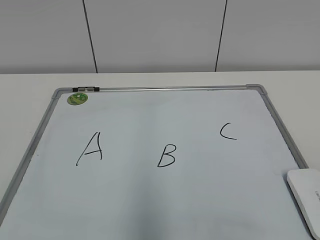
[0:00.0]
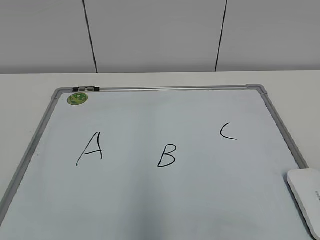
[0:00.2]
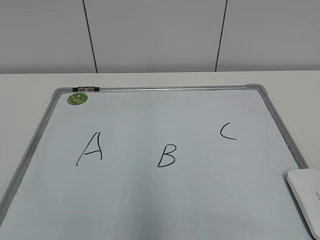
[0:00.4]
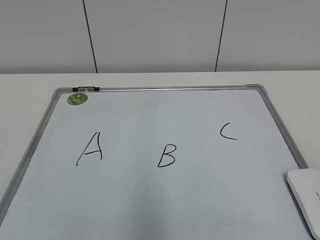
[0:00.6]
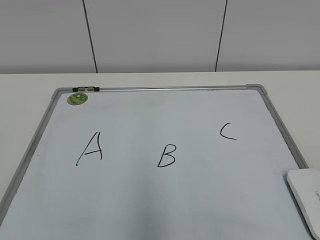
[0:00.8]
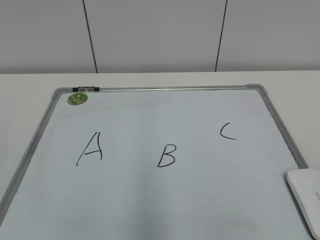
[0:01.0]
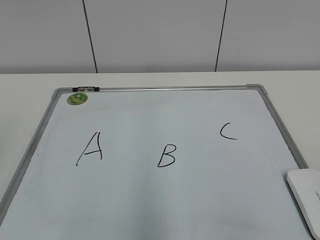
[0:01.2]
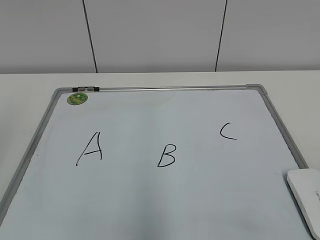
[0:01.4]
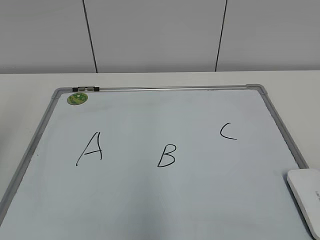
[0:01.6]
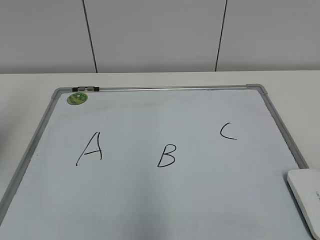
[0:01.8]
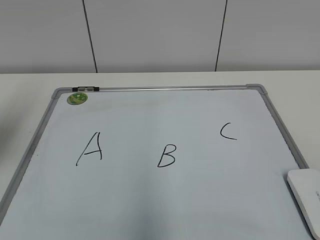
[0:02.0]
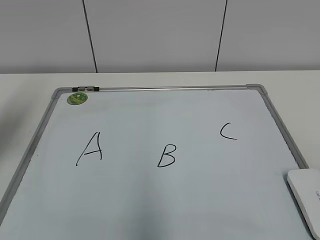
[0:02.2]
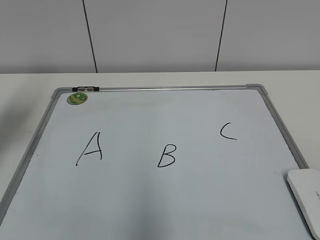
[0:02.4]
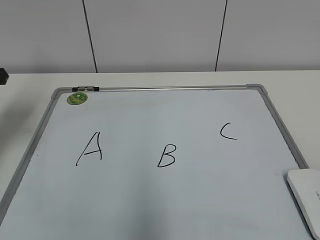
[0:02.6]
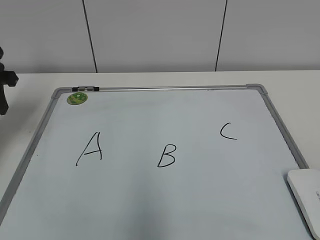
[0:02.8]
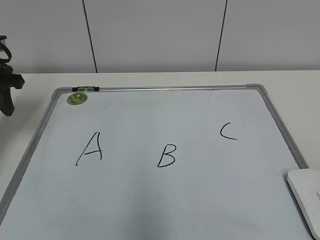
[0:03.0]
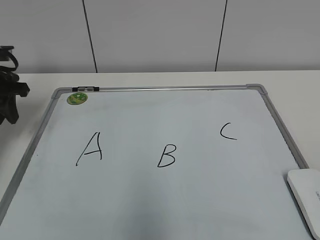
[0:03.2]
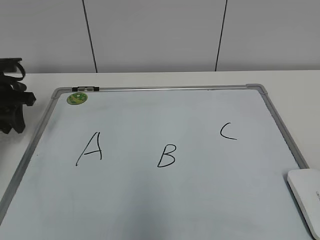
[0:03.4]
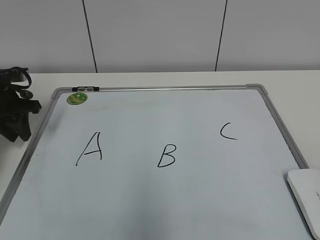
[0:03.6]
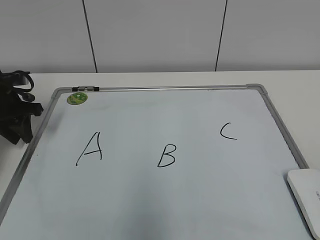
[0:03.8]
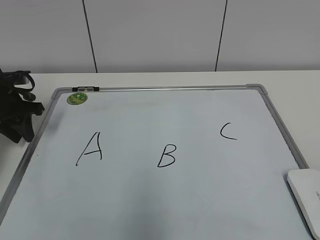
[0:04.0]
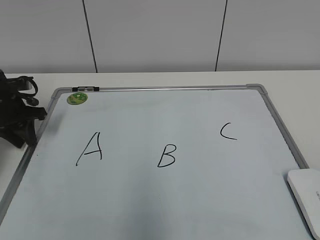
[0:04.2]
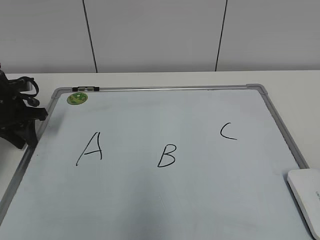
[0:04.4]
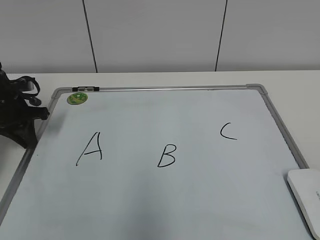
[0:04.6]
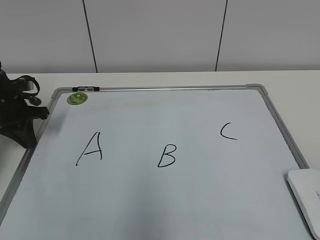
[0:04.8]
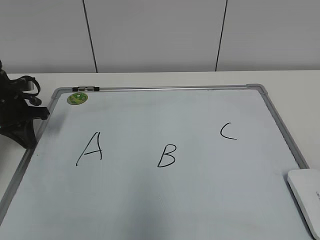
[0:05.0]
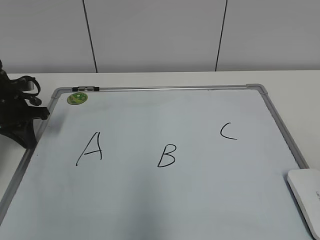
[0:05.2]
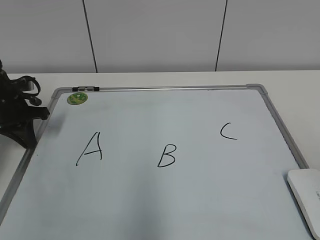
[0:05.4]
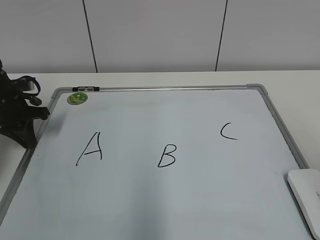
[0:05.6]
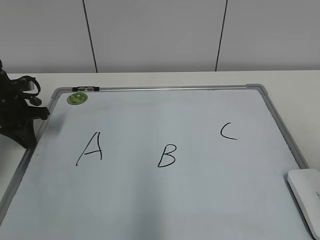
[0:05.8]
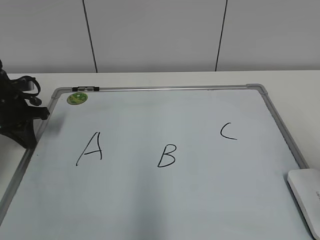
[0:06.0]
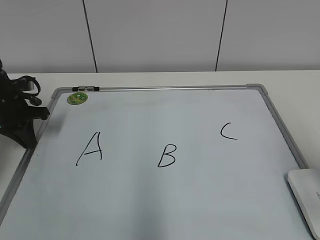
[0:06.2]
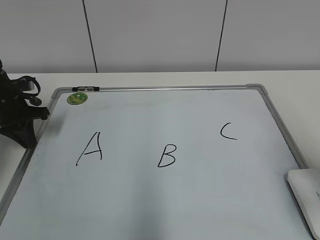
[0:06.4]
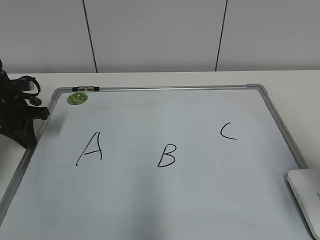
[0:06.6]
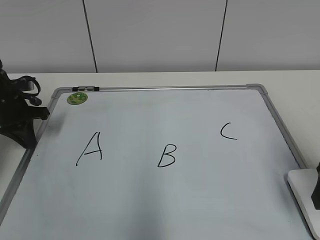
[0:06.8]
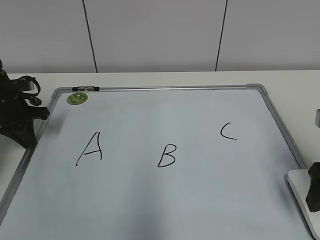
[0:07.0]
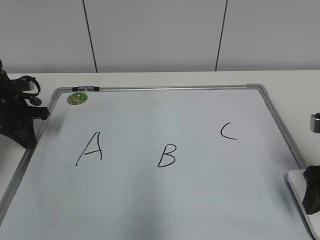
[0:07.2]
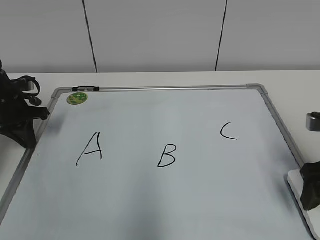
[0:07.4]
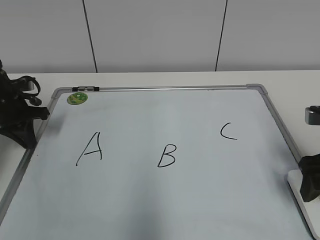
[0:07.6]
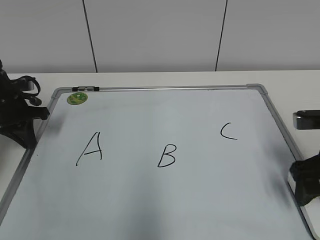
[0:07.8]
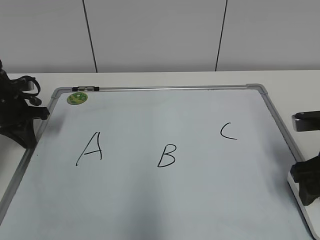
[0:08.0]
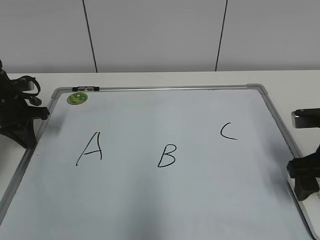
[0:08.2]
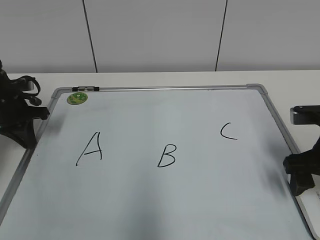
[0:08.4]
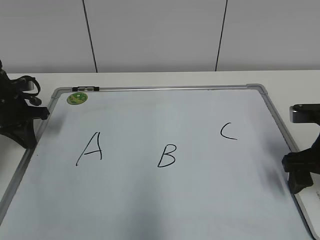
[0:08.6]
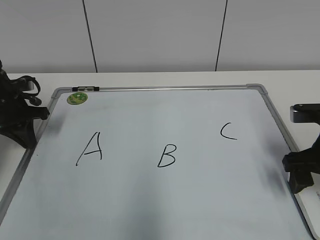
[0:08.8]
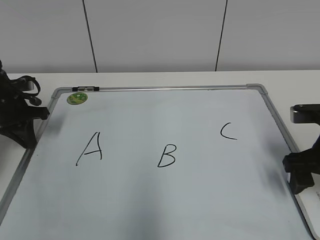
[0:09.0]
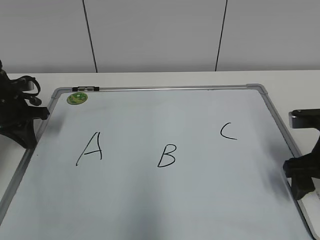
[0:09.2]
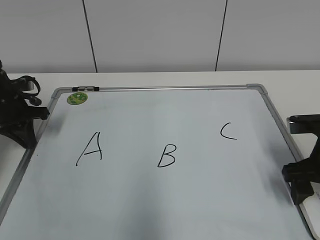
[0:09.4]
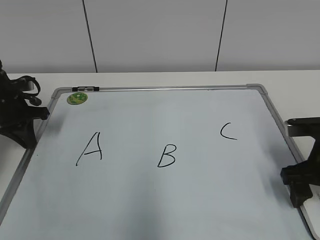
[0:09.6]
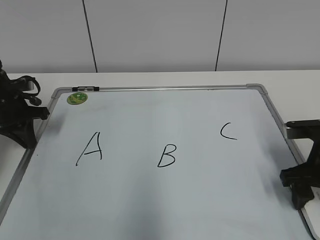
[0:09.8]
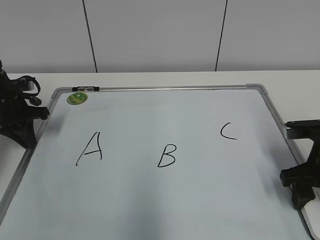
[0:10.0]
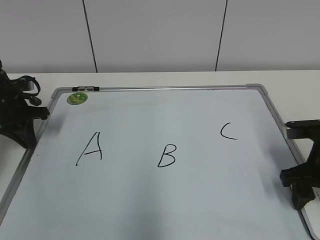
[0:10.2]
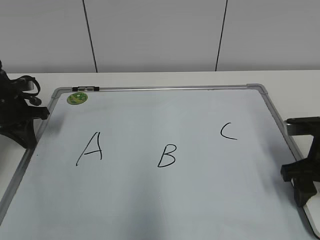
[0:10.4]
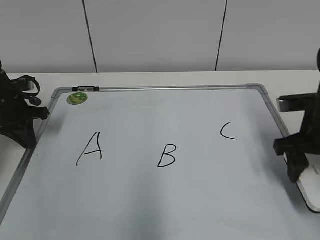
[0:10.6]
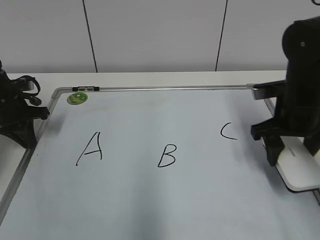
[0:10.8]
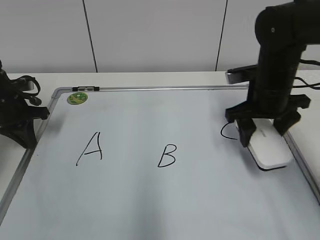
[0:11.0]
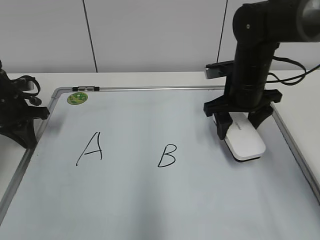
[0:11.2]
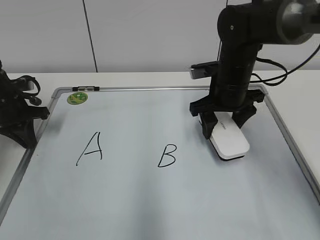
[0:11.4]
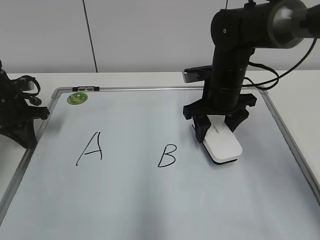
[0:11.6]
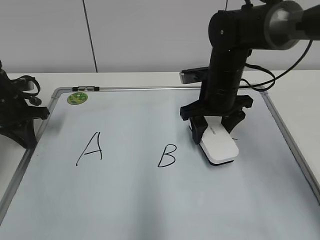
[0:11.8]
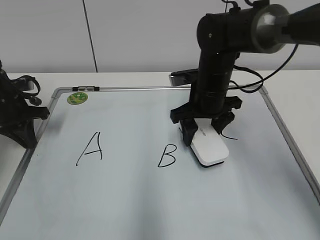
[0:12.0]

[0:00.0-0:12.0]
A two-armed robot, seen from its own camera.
Task of the whole recording: pick up the eraser on the blackboard and erase the letter "B".
Step, 0:00.0 to 0:04.6: Hold the drawing board steady with your left hand.
Step, 0:04.8 to 0:10.0: Grab the eraser with your right hand.
0:01.6 to 0:03.0: The left gripper is displaced forward and downward by approximately 25 cm.
0:03.0 to 0:04.4: The left gripper moves downward, approximately 10 cm.
0:04.4 to 0:06.0: The left gripper closes.
0:06.0 to 0:07.6: The right gripper goes roughly 15 cm forward and downward, and opens up.
0:07.6 to 0:09.0: The grippers stay close to where they were, moving slightly.
0:09.0 to 0:10.4: The right gripper closes its fingers.
0:10.4 to 0:12.0: The right gripper travels to the left and forward by approximately 20 cm.

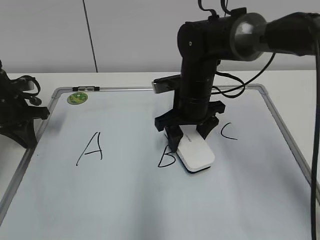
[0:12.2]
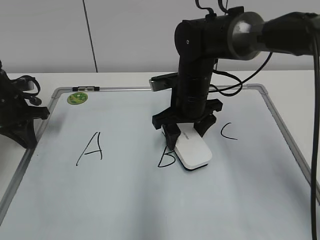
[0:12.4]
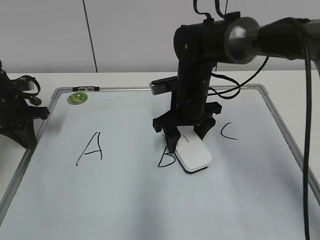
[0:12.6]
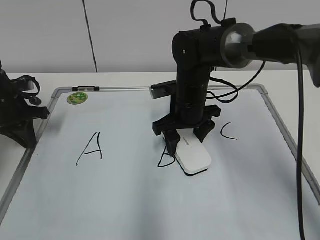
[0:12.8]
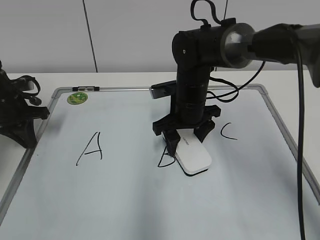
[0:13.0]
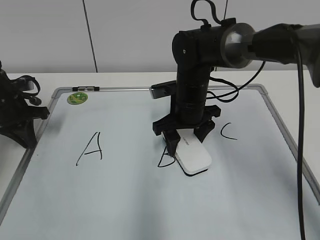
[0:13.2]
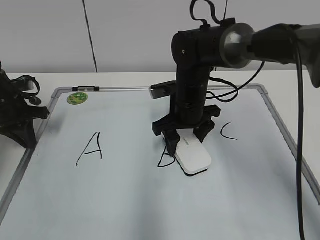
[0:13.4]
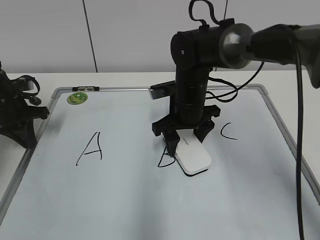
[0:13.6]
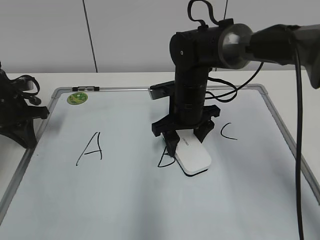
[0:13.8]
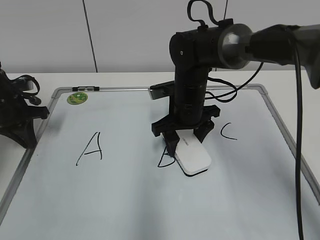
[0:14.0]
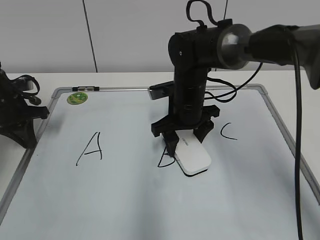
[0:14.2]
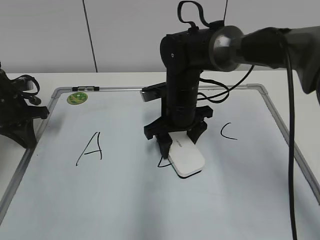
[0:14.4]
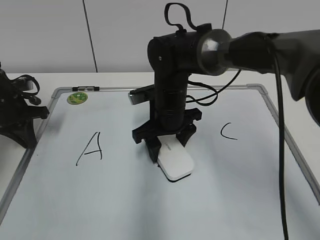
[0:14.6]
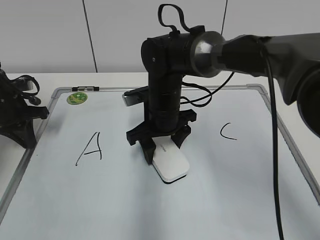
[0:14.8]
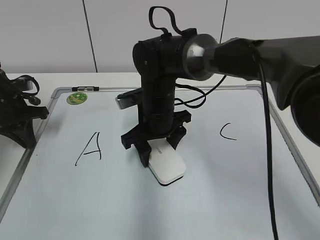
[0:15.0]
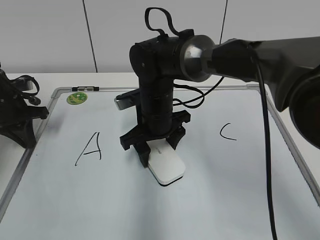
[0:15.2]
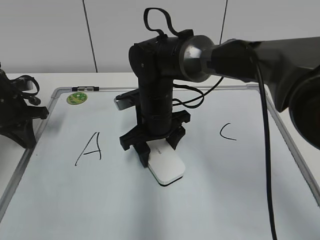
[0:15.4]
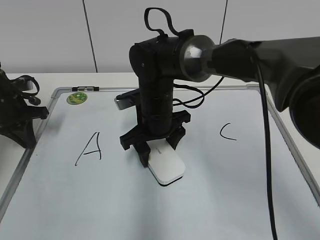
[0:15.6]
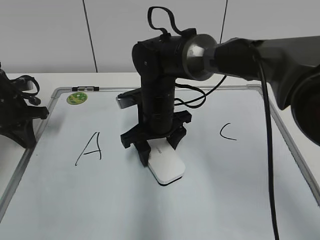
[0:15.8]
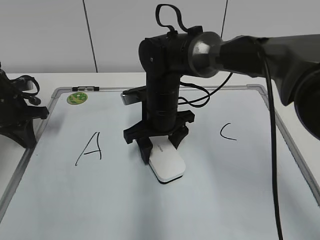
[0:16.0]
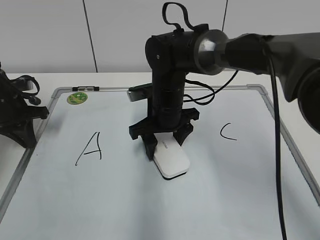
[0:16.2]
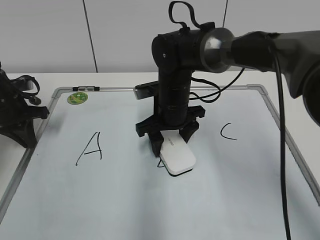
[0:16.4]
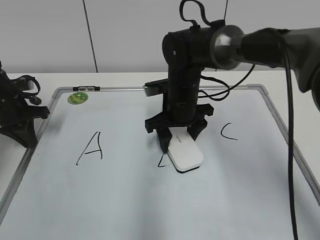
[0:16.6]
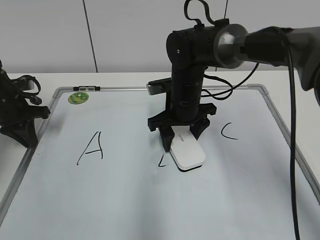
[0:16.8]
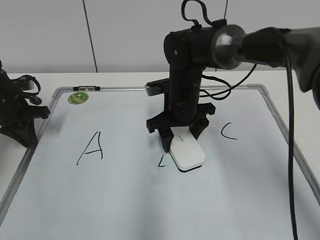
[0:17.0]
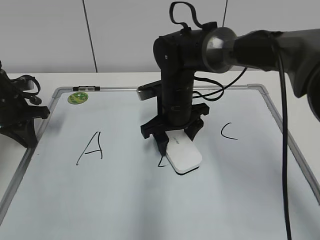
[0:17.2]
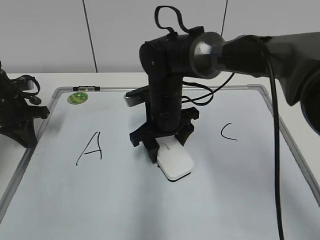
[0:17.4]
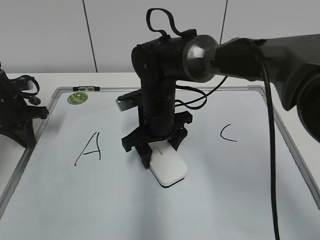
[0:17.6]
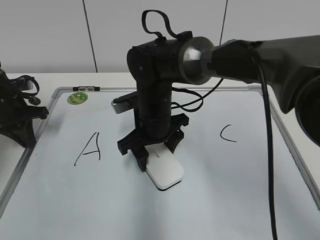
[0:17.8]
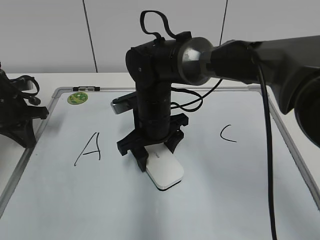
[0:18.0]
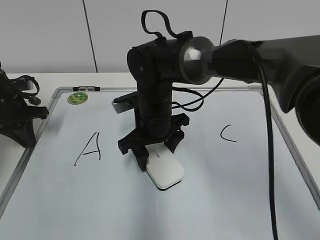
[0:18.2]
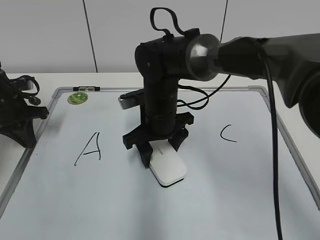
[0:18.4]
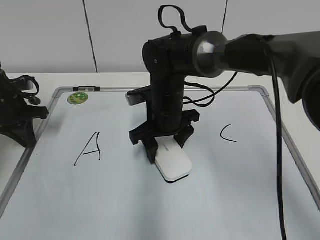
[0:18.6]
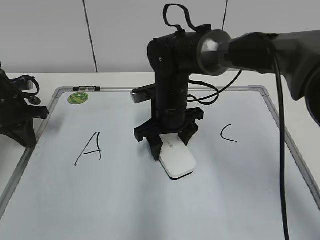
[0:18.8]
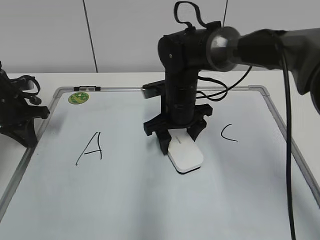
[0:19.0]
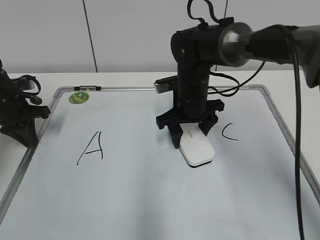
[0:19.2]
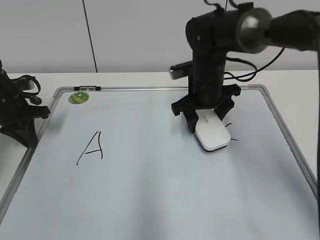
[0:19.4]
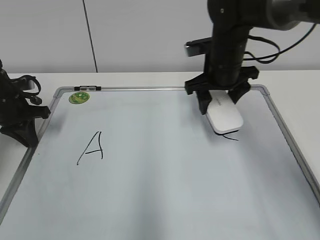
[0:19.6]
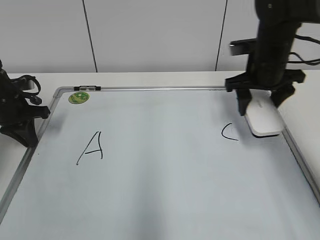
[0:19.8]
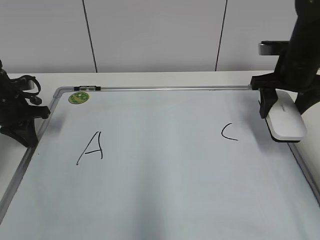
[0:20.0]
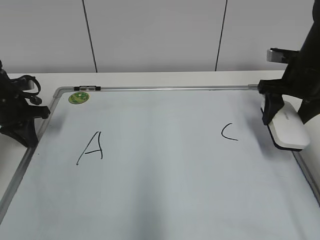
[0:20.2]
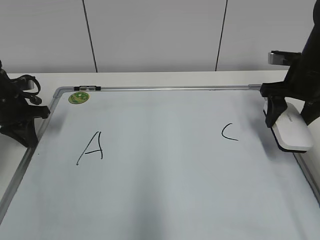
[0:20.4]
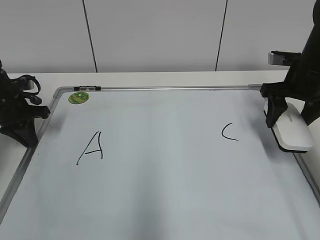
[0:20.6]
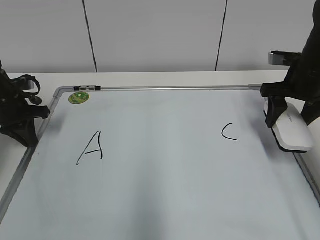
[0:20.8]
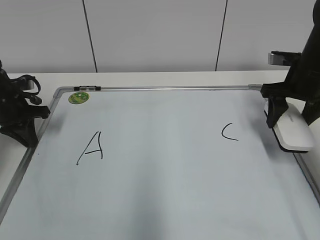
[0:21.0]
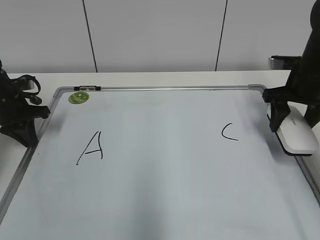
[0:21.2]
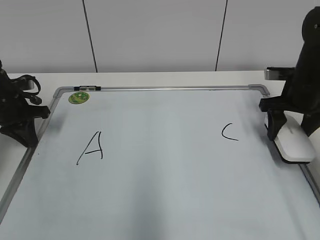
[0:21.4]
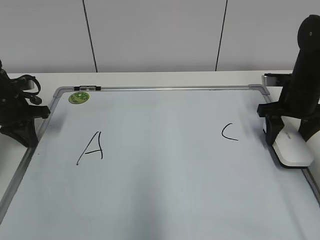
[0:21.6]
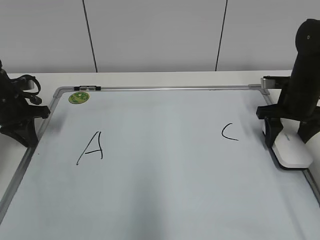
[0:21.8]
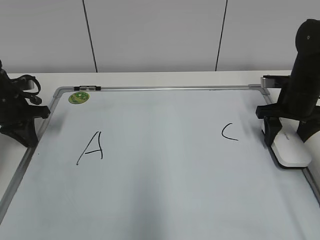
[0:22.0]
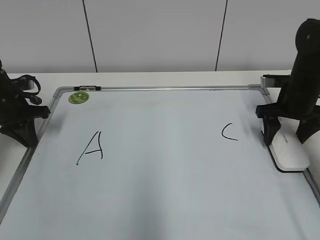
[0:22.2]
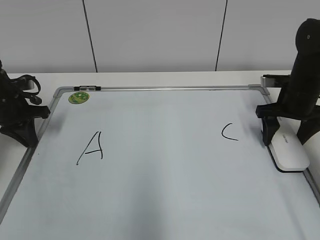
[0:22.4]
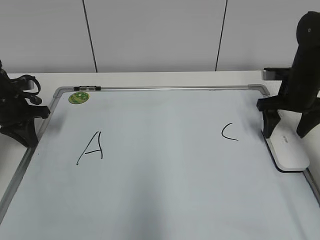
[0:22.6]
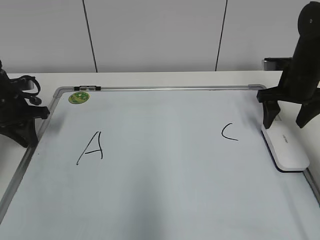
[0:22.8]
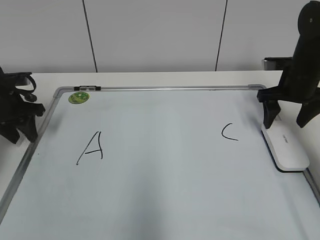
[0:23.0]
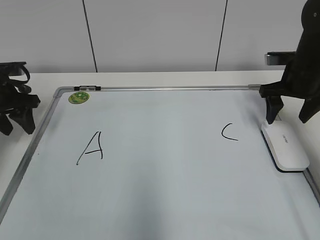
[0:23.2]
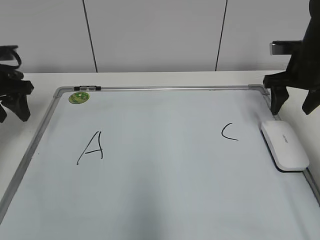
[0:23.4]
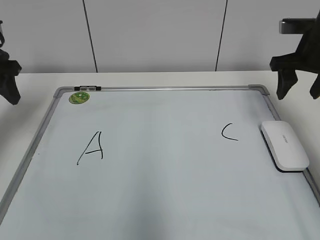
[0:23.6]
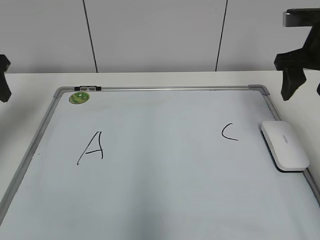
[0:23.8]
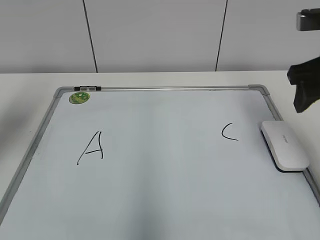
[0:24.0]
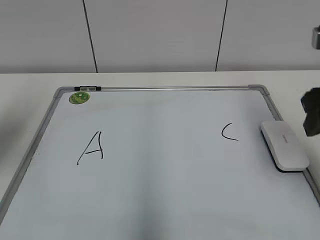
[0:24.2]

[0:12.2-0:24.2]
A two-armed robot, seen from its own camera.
Task of the whole recording: pick up the eraser on the blackboard and erase the letter "B".
Step, 0:12.2 to 0:19.2: Erase the letter B with your right hand.
Step, 0:19.4 to 0:22.4: Put down the eraser with your right hand.
0:12.2 to 0:13.8: The grippers stay close to where they were, moving slightly.
0:13.8 to 0:15.2: The right gripper heads to the left, covering some 5 cm.
0:15.2 to 0:16.6: The right gripper is displaced to the right by some 5 cm.
0:16.6 to 0:18.2: The right gripper moves to the left, approximately 5 cm.
0:18.2 to 0:19.8: The right gripper travels to the right by about 20 cm.
0:19.8 to 0:21.2: The right gripper is displaced to the right by approximately 5 cm.
0:21.2 to 0:22.6: The right gripper opens.
0:22.6 to 0:24.2: The right gripper goes approximately 20 cm backward and upward, and closes, while the left gripper goes roughly 20 cm upward and backward, and opens.
